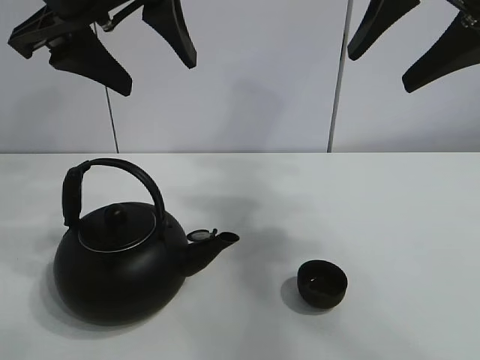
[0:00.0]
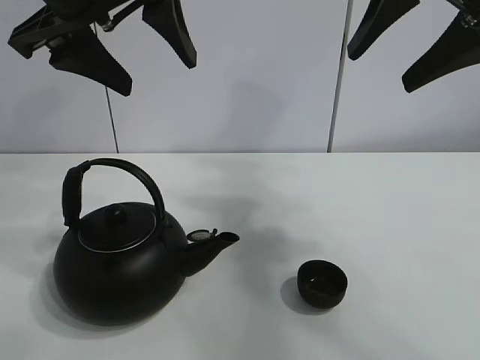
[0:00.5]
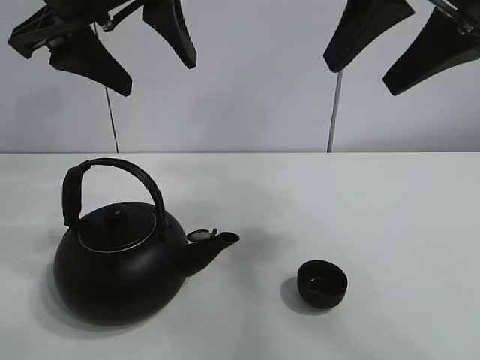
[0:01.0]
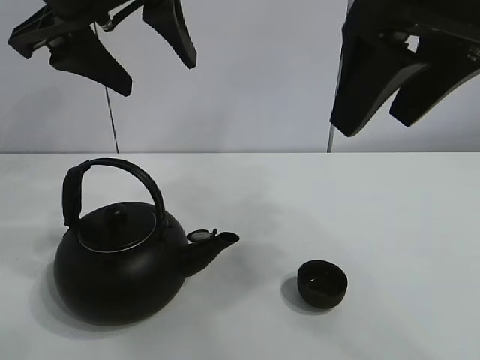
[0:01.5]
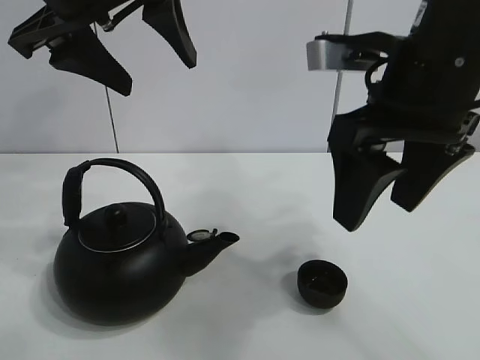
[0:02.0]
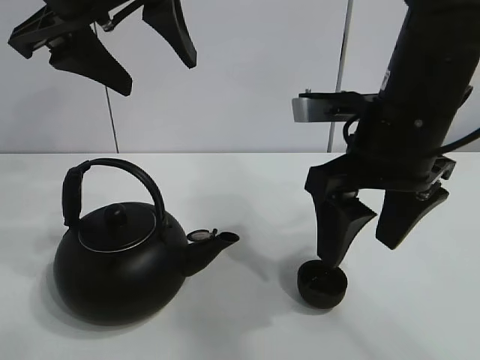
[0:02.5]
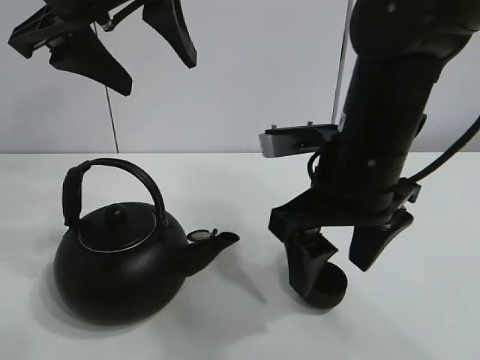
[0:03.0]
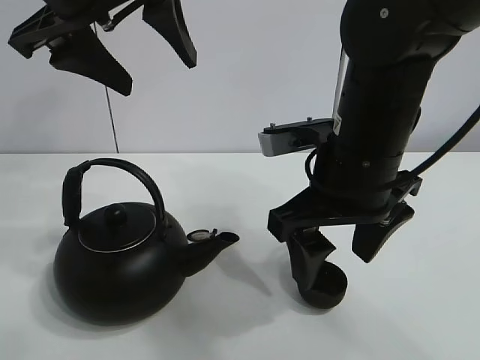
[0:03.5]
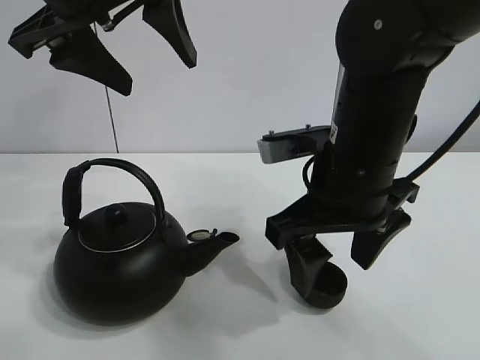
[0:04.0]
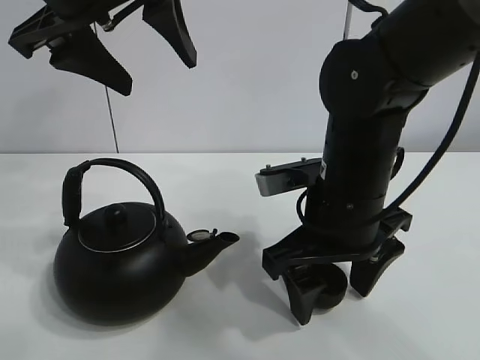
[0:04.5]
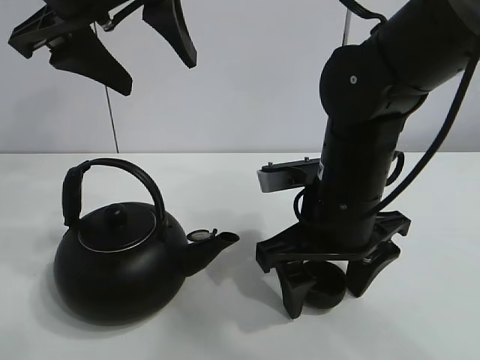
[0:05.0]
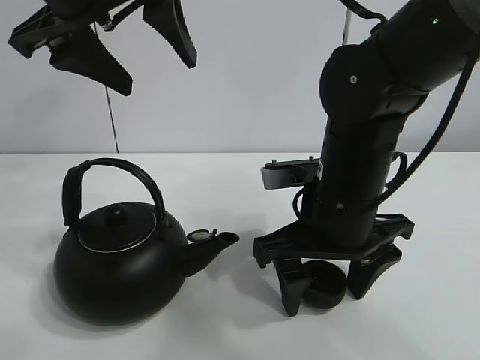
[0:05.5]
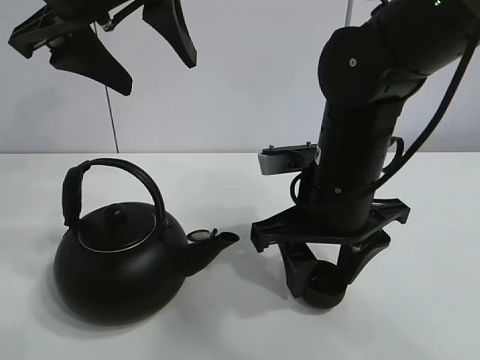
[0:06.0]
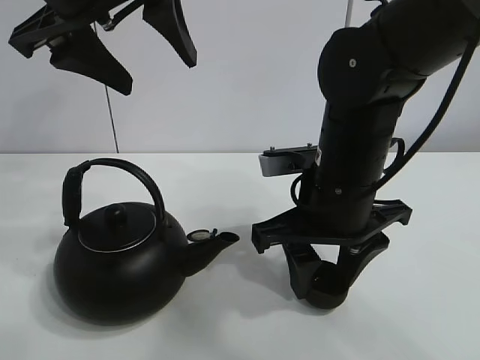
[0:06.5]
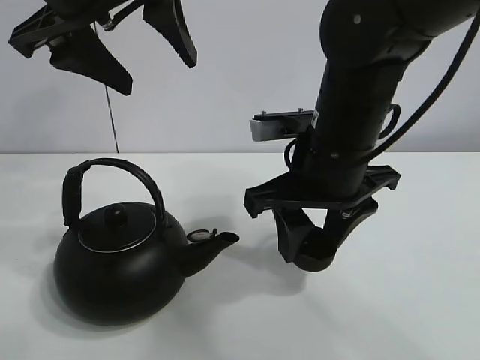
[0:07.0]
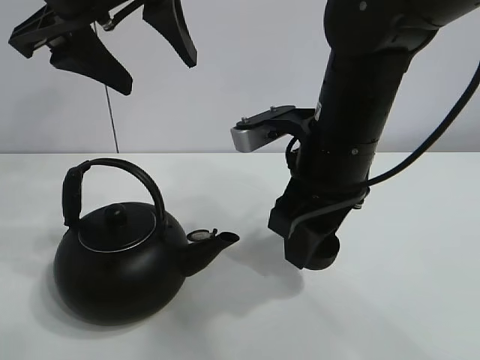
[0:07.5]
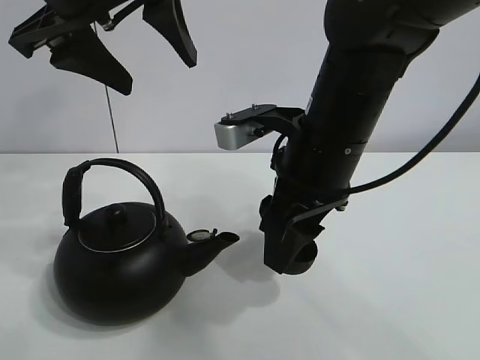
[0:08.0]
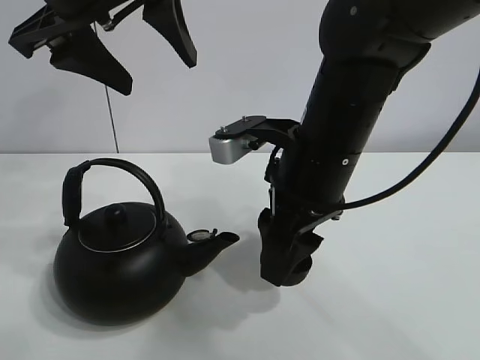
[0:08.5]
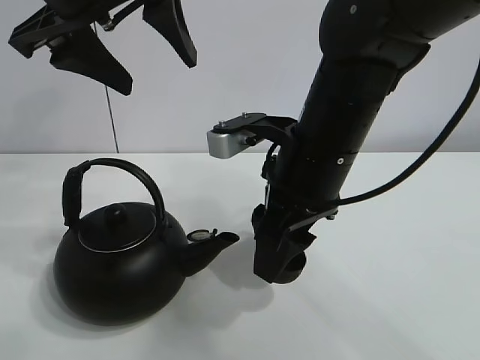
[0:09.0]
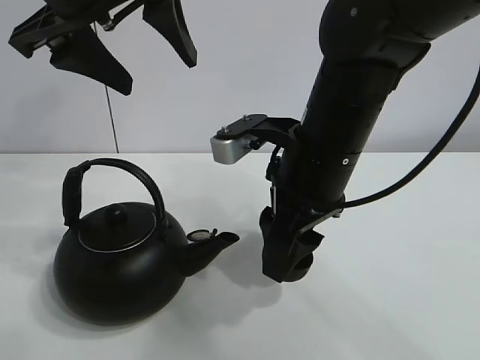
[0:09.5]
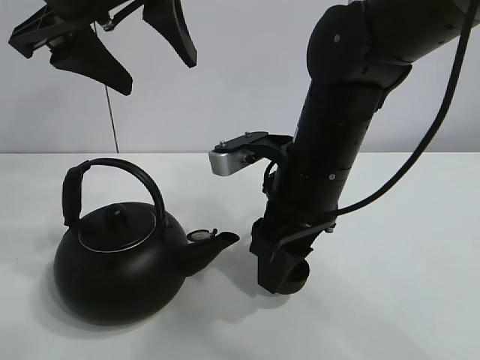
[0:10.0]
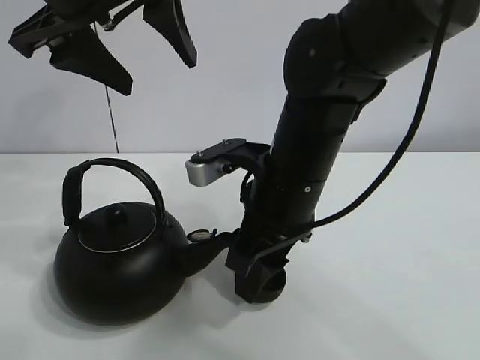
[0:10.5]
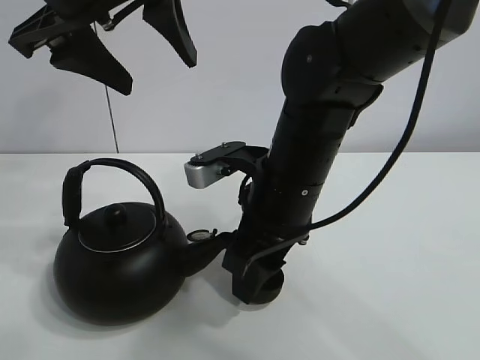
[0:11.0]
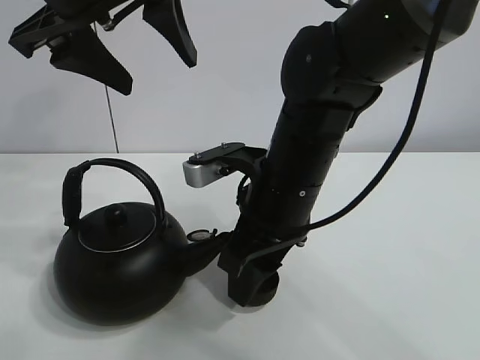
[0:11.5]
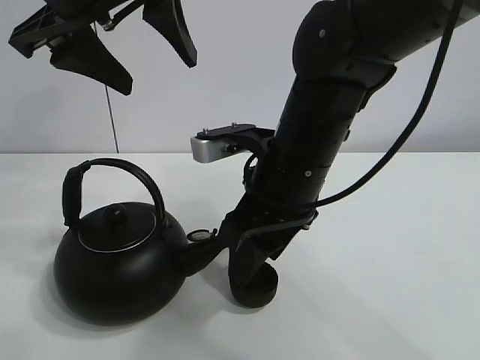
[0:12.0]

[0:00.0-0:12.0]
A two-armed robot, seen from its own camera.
Task of the whole recording: pour tea into the teacup.
Step, 0:00.0 to 0:06.0: Pick up the teacup with the right gripper.
Step, 0:06.5 to 0:11.5: Place the teacup in the center of view with the right gripper.
0:02.0 to 0:04.0: The right gripper goes roughly 10 cm downward.
0:04.0 to 0:06.0: The right gripper closes its fingers.
0:08.0 to 0:12.0: The grippers make only small movements.

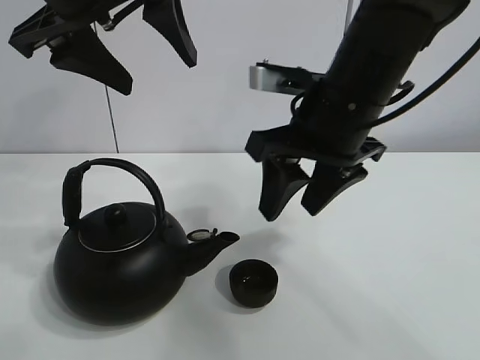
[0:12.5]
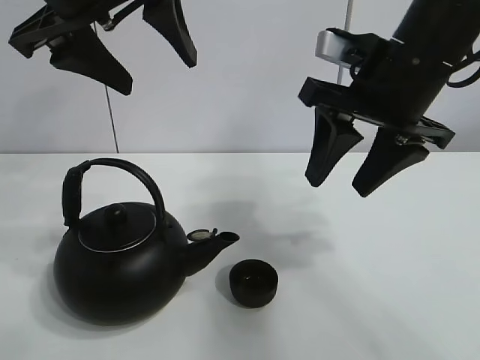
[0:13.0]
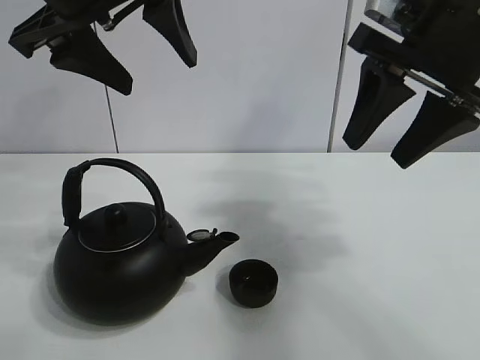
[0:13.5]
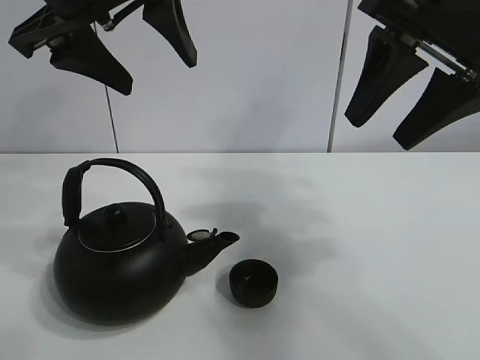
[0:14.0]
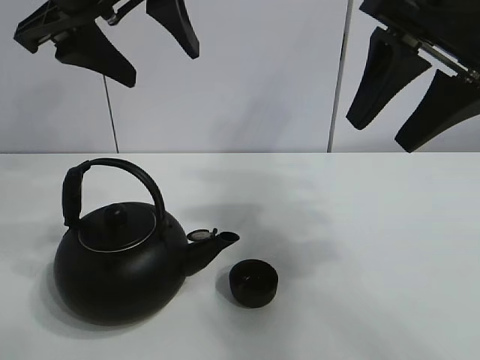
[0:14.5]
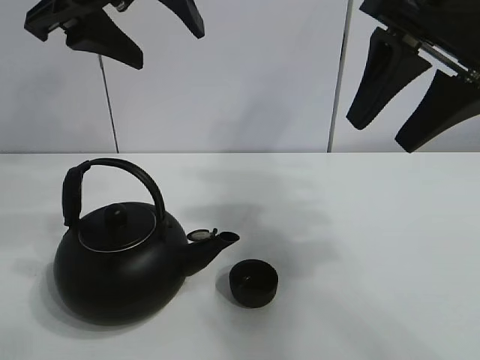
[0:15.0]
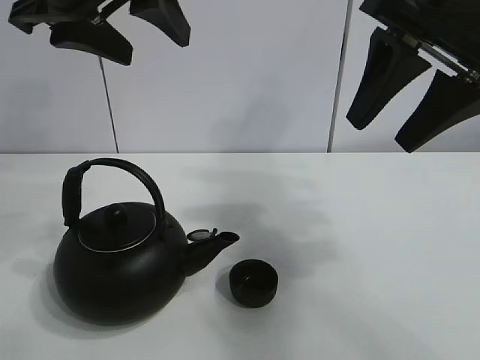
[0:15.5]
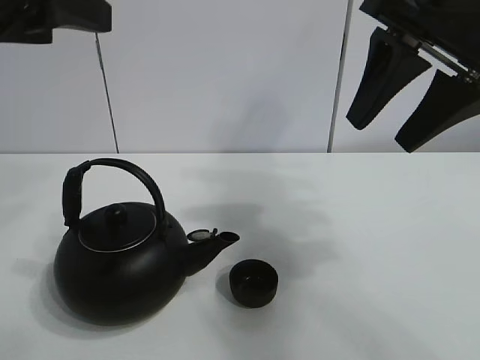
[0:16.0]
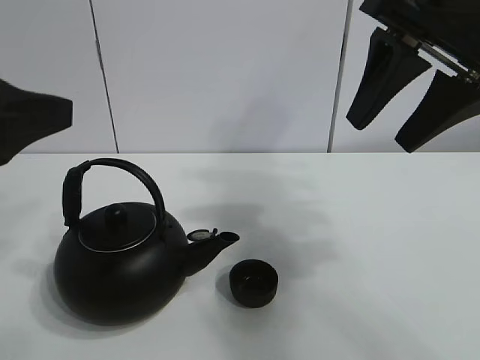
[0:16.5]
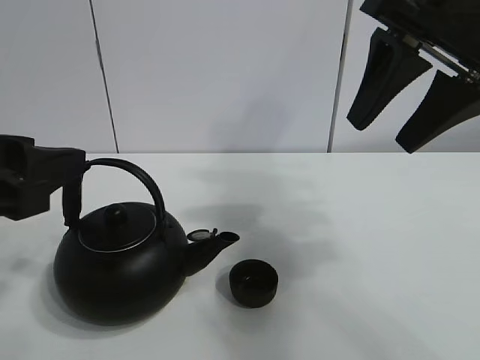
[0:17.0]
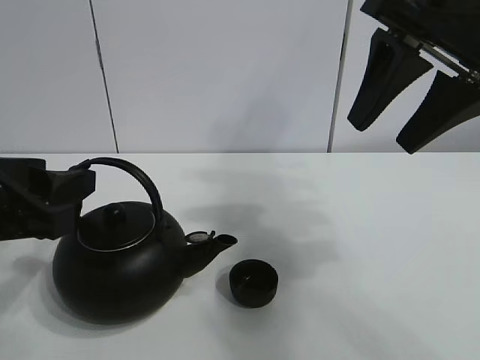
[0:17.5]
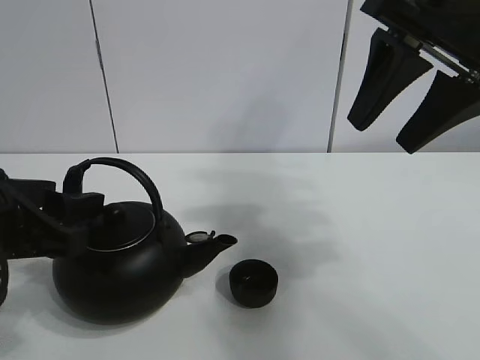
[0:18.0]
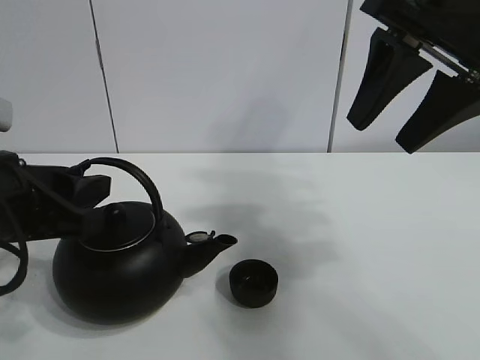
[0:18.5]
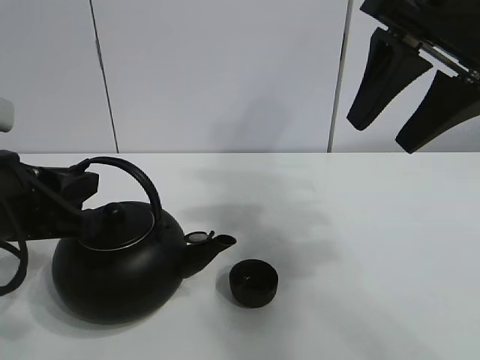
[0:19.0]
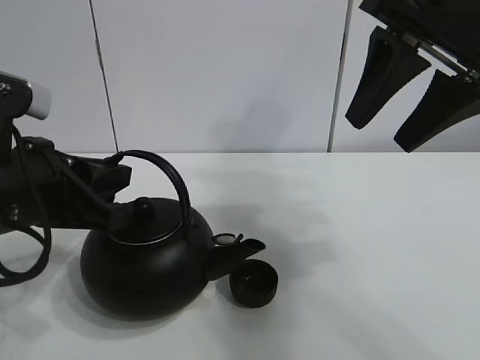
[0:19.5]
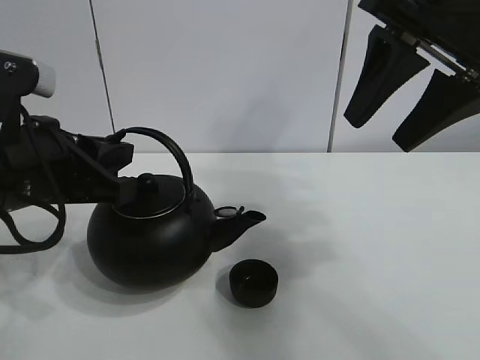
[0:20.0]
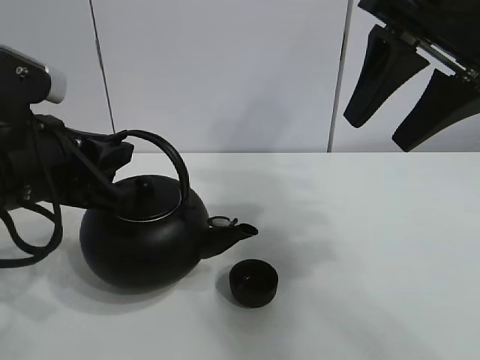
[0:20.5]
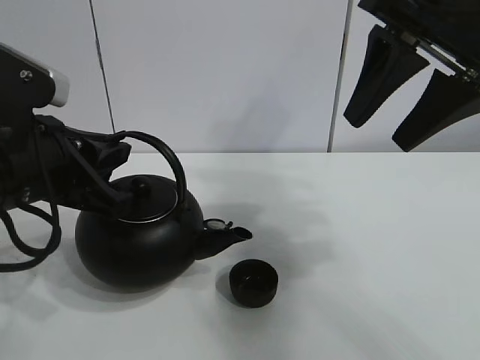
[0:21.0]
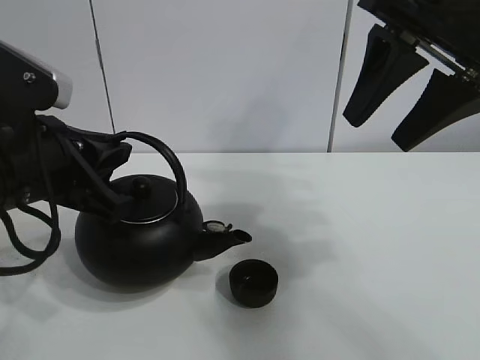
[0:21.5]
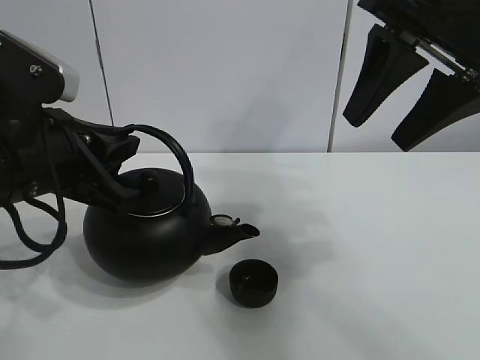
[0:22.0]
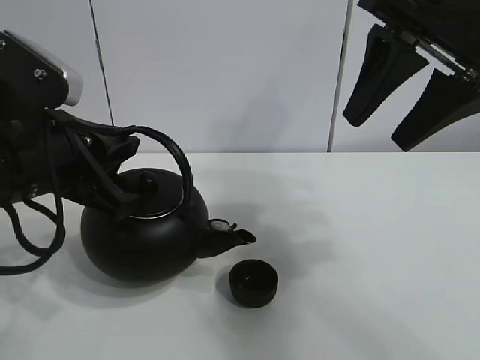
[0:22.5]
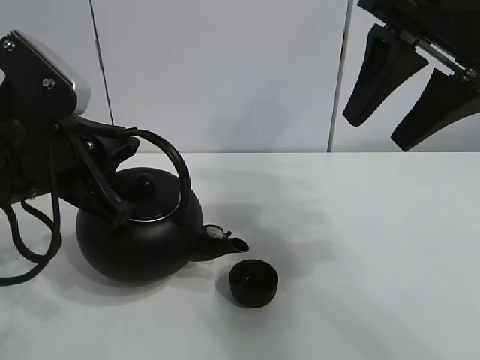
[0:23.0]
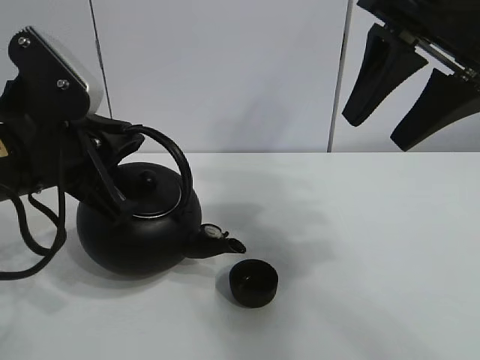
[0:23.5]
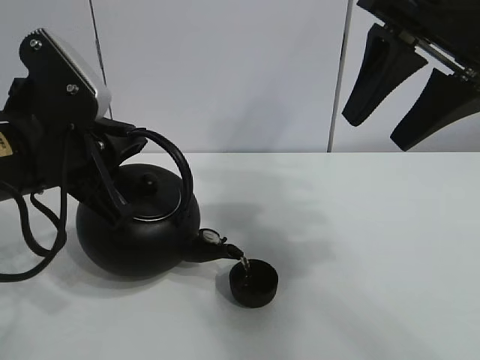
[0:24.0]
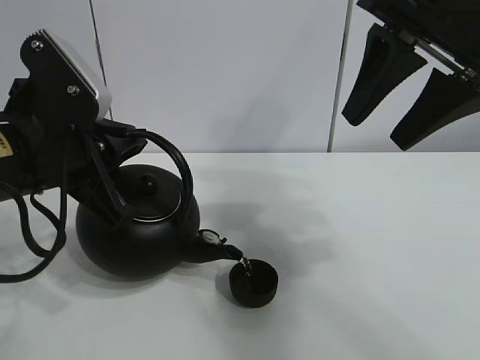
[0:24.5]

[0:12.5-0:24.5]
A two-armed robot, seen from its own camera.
Task of the whole recording: pour tea into the teacup.
Step, 0:12.5 to 0:18.5: Pick up the teapot with the left gripper.
0:12.5 to 0:14.5: The right gripper heads to the right and upward, covering roughly 15 cm.
0:14.5 to 0:16.5: The left gripper goes about 15 cm backward, to the left and downward.
0:16.5 to 0:18.5: The left gripper shifts roughly 10 cm downward.
0:18.5 to 0:20.5: The left gripper closes its fingers.
0:20.5 to 0:22.5: The grippers move only a little.
0:22.5 to 0:24.5: The grippers make only small movements.

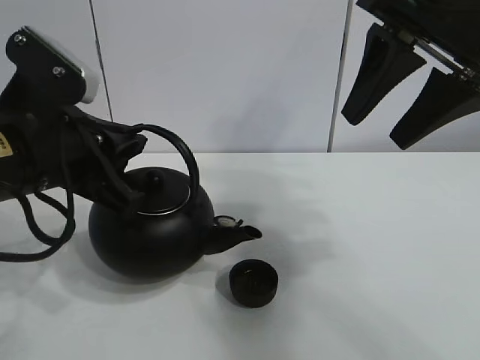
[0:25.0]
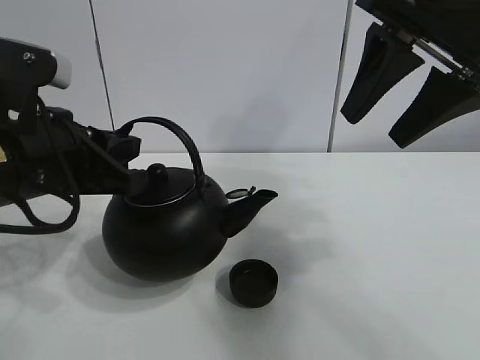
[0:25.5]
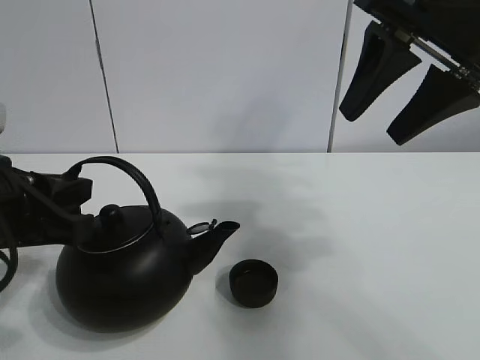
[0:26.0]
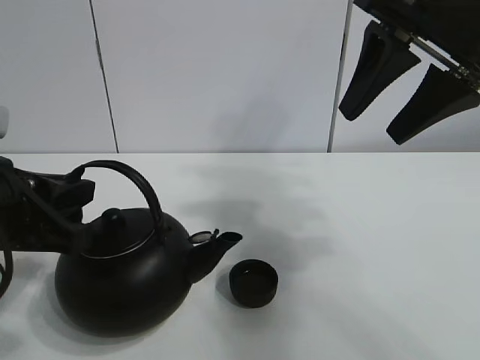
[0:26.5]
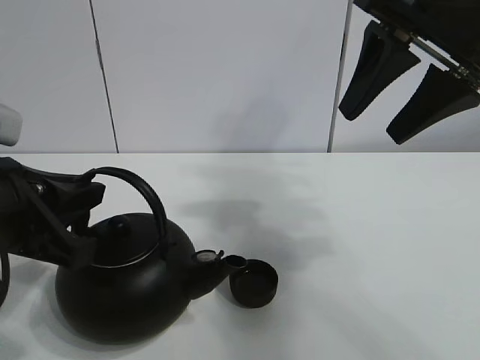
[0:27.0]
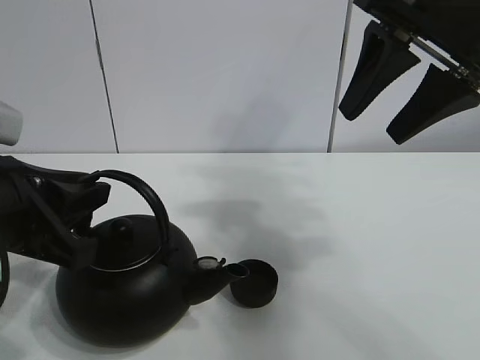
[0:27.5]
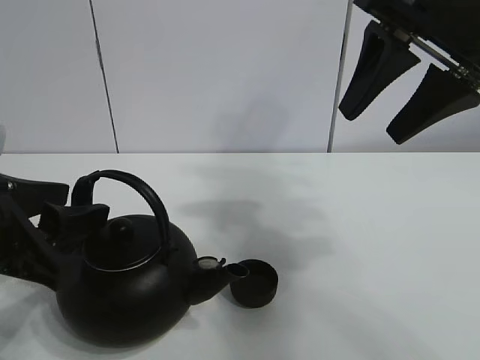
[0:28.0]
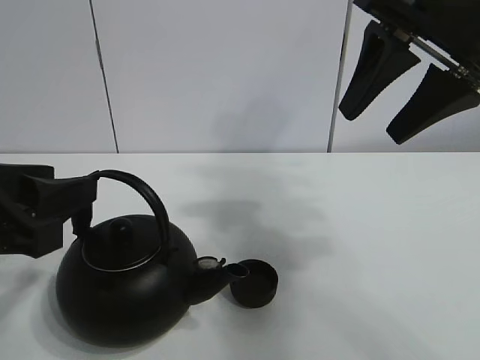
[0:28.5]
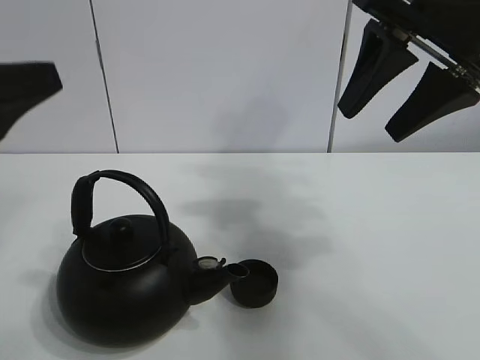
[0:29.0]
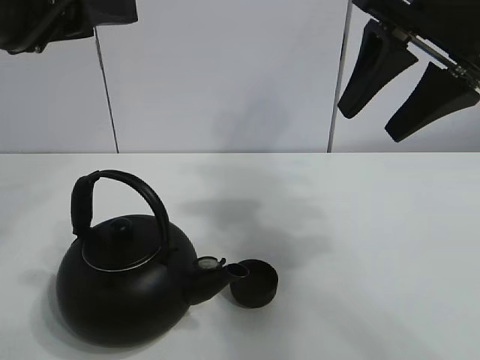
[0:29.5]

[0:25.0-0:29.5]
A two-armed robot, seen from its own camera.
Task of the whole recording: pour tea into the teacup.
0:25.0 to 0:27.0: The left gripper heads backward, covering roughly 5 cm.
0:27.0 to 0:29.5: The left gripper shifts about 15 cm upward, and opens up.
